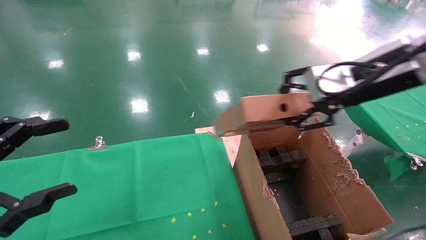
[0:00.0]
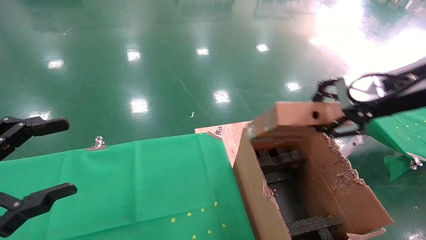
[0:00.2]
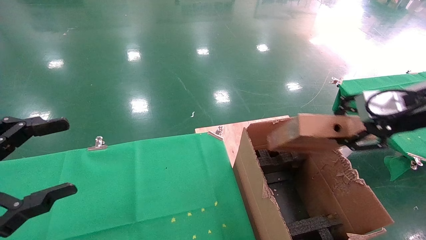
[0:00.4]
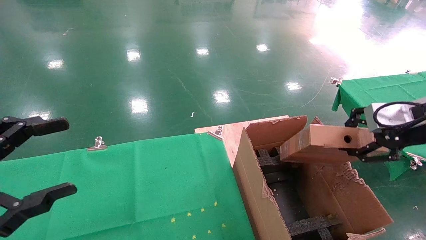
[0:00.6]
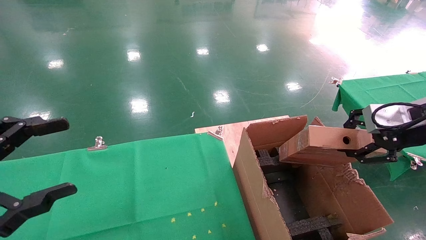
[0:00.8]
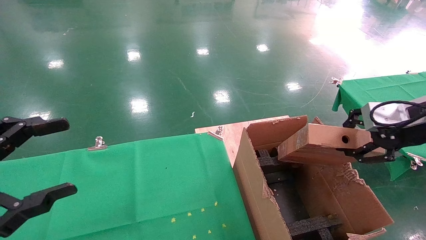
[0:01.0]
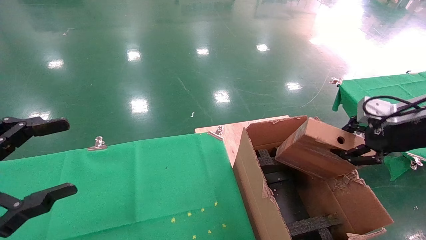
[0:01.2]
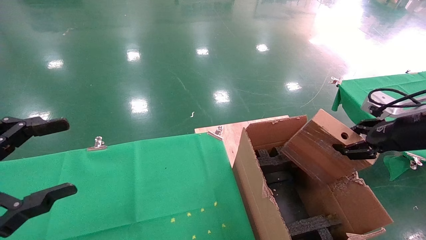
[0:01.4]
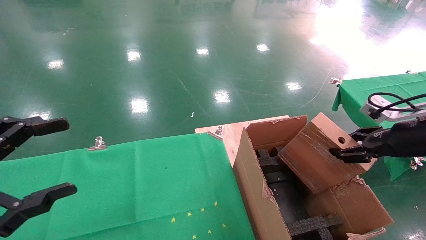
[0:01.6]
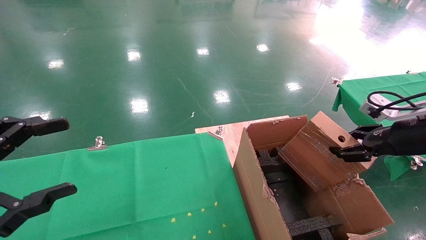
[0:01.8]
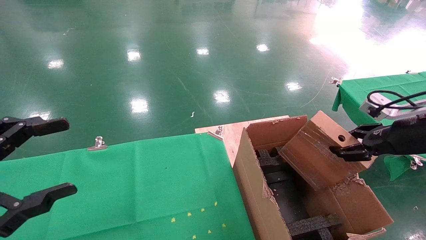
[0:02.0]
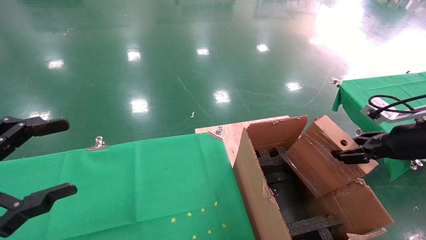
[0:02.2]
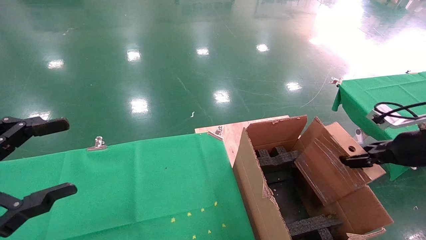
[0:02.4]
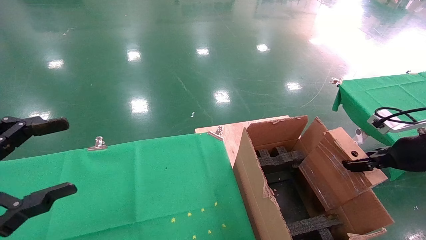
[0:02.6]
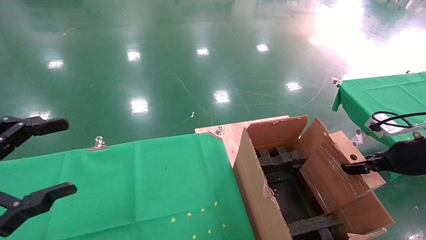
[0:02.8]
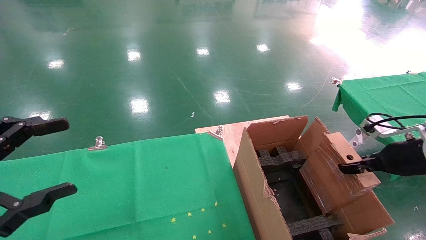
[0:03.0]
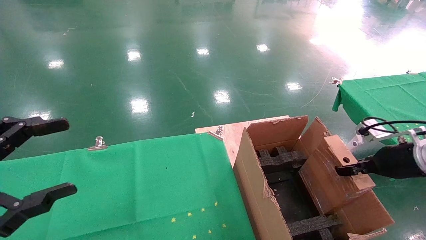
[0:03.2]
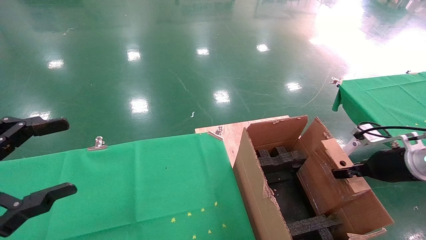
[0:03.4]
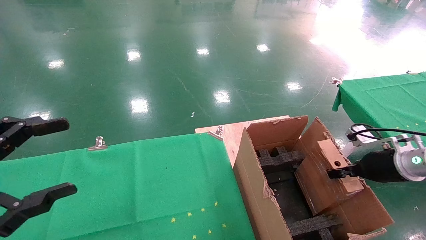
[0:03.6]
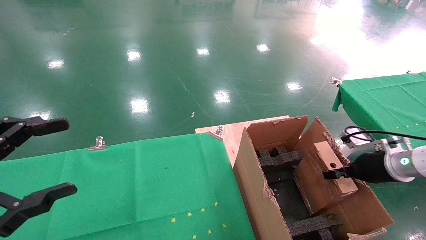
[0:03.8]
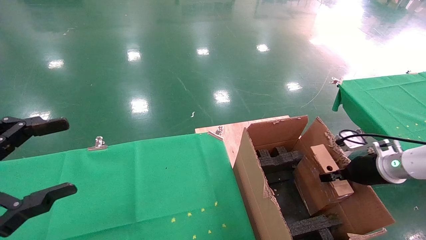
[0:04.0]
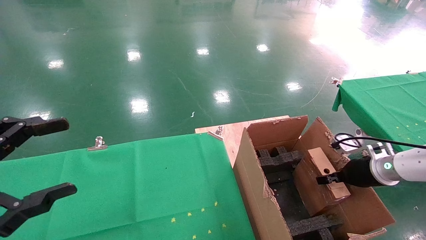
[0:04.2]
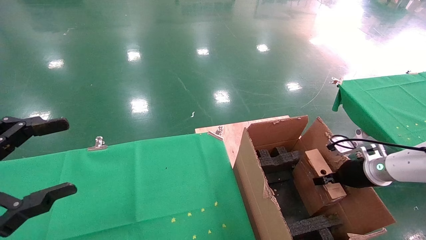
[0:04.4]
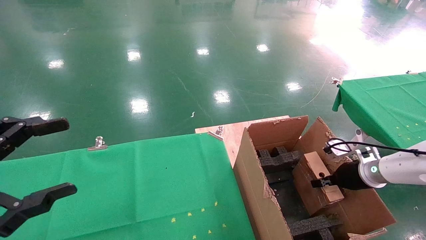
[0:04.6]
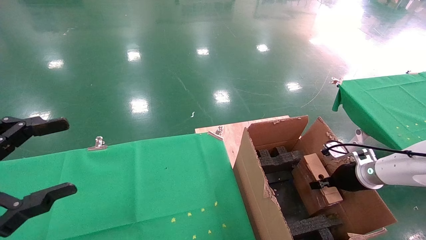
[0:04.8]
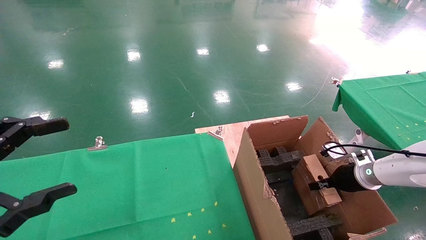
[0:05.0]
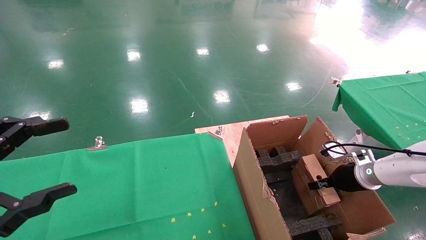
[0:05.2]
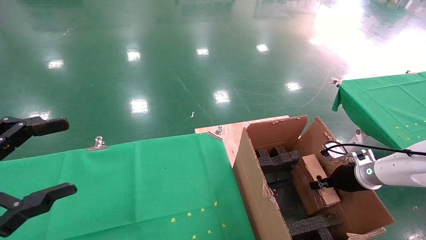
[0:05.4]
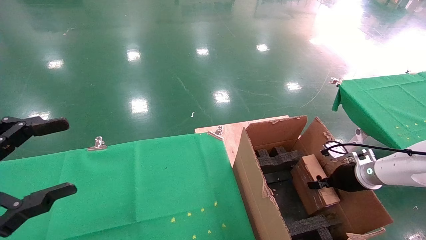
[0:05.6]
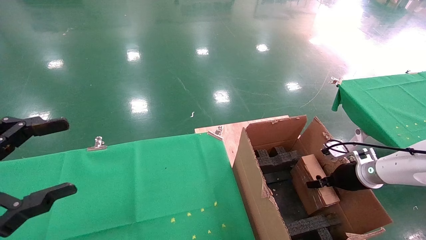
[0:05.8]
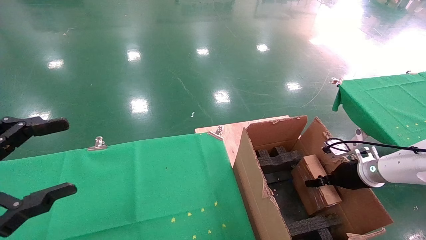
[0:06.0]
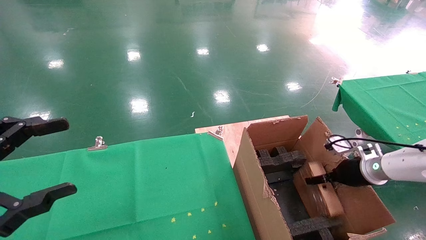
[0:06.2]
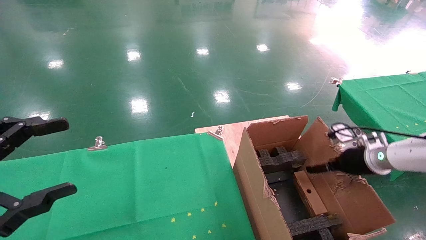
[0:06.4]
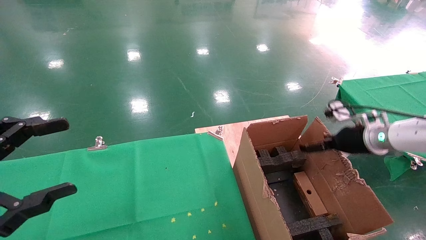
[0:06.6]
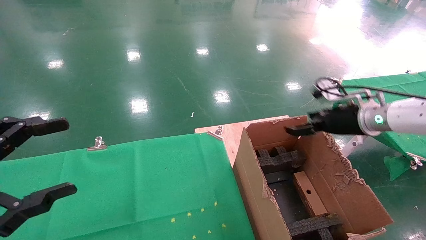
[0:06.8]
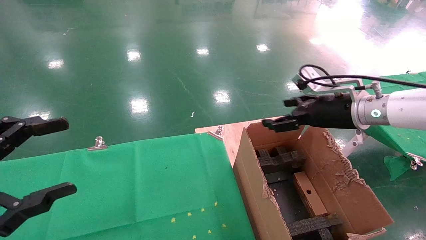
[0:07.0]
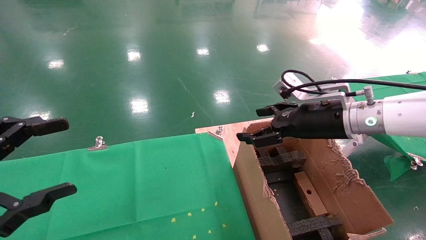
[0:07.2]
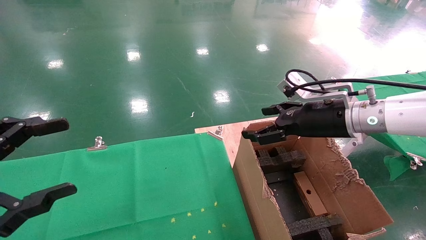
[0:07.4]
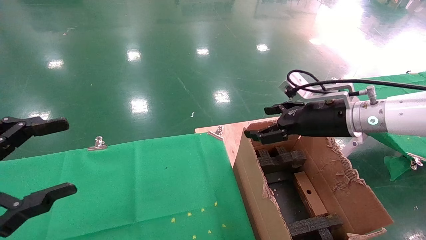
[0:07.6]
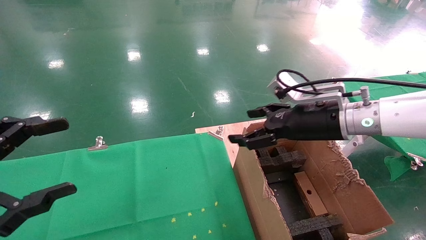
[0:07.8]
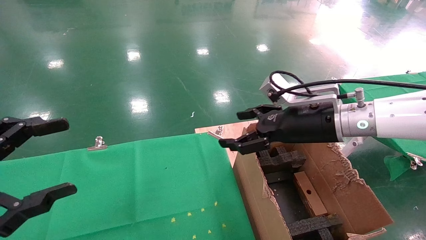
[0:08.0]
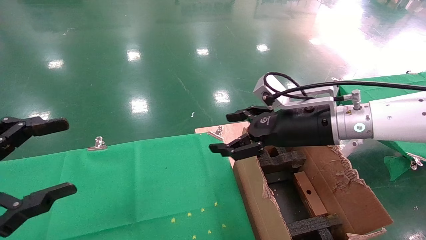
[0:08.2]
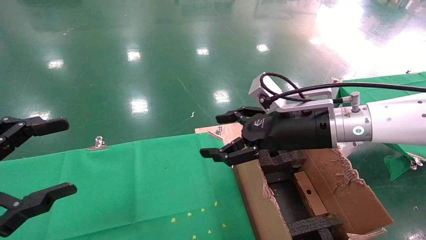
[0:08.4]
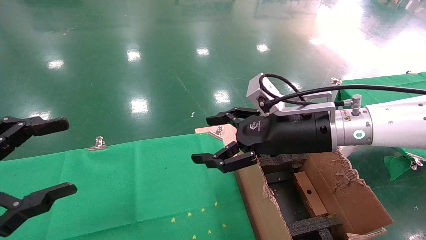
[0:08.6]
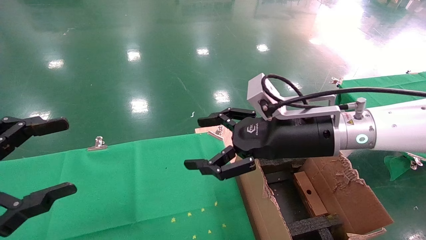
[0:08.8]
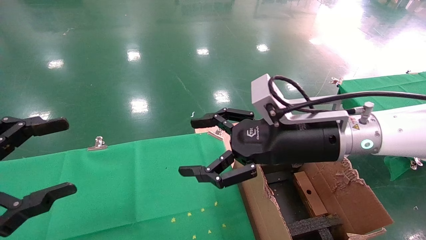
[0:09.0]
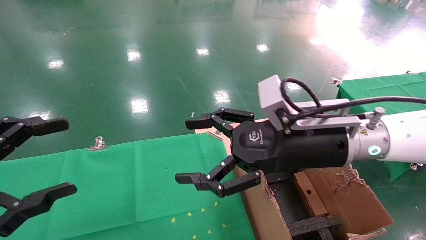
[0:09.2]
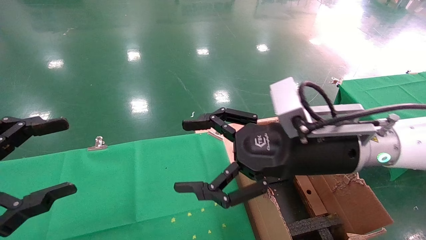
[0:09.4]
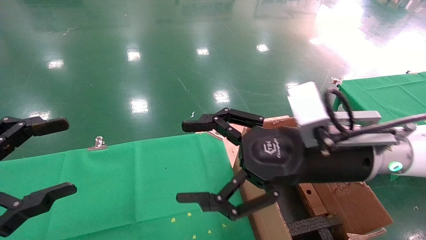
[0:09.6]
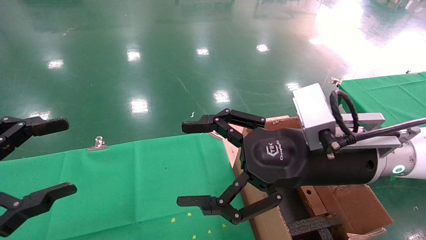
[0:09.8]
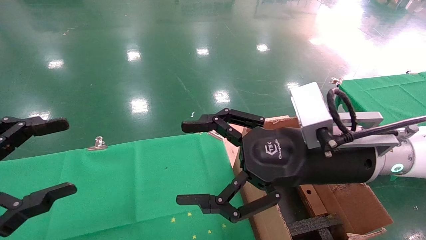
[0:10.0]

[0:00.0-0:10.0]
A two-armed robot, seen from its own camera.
Task of the whole recording: using a robotic arm to pick up a cardboard box and palace it the carton.
Step, 0:00.0 to 0:06.8: Place the mouse and the power cord paper box into the container.
0:00.0 to 0:01.4: The right gripper goes some 15 cm to the right and downward.
0:01.4 to 0:02.8: The right gripper goes about 5 cm downward.
0:02.8 to 0:04.2: The right gripper moves downward and forward, some 10 cm.
0:04.2 to 0:05.8: The grippers stay close to where they were, moving slightly.
0:05.8 to 0:07.2: The right gripper moves upward and to the left, approximately 25 cm, and opens up.
0:07.2 to 0:08.6: The right gripper moves to the left, about 10 cm.
0:08.6 to 0:10.0: The right gripper travels backward by roughly 5 cm.
